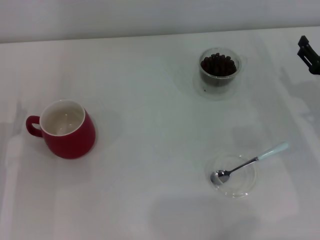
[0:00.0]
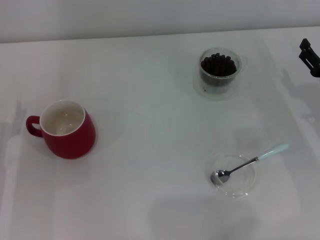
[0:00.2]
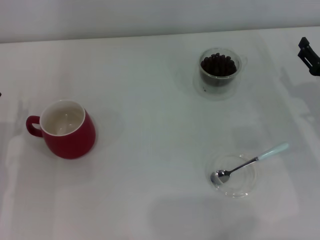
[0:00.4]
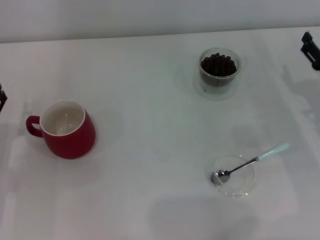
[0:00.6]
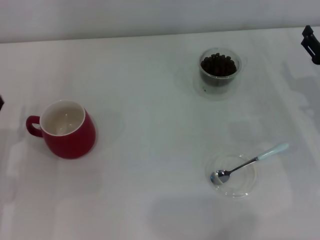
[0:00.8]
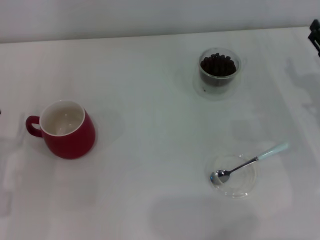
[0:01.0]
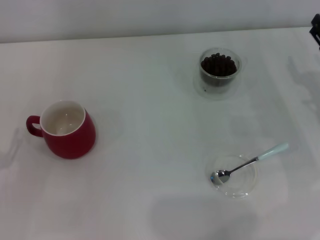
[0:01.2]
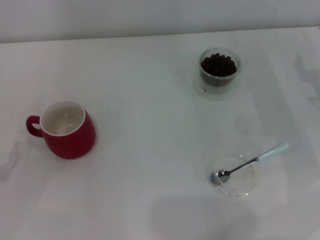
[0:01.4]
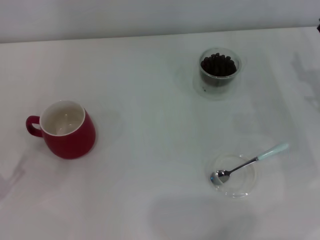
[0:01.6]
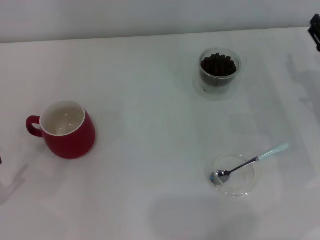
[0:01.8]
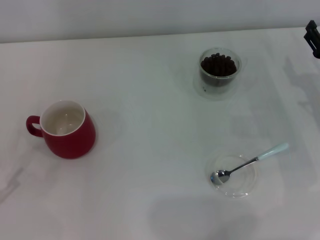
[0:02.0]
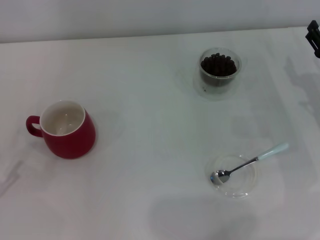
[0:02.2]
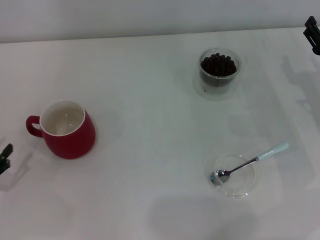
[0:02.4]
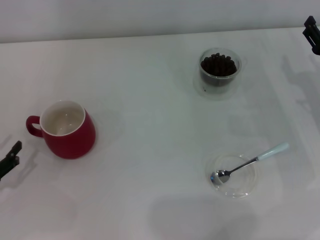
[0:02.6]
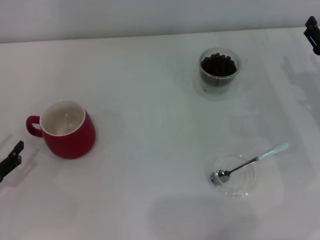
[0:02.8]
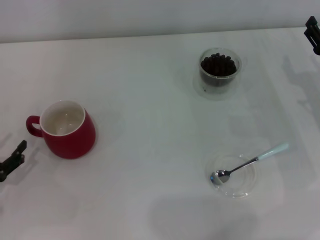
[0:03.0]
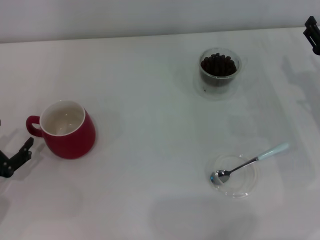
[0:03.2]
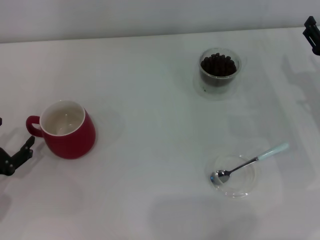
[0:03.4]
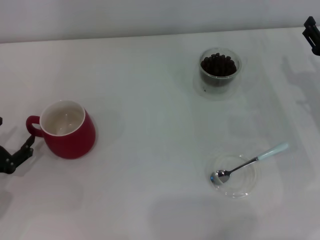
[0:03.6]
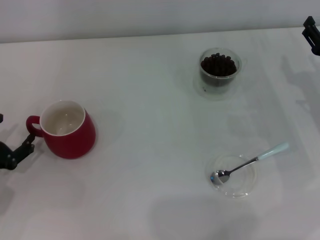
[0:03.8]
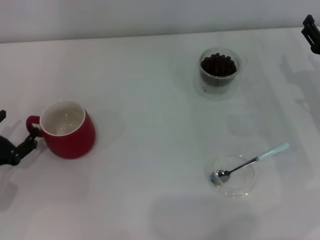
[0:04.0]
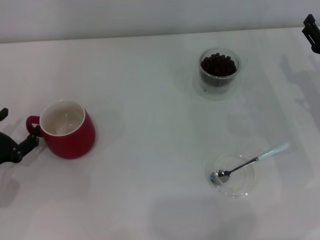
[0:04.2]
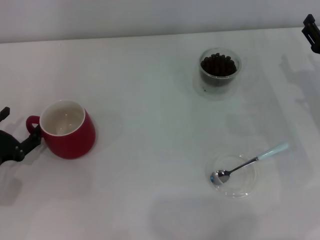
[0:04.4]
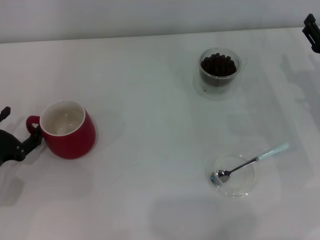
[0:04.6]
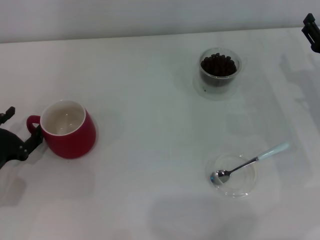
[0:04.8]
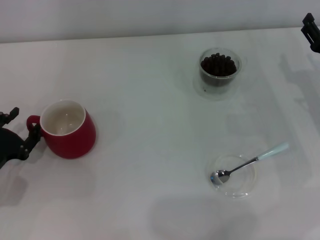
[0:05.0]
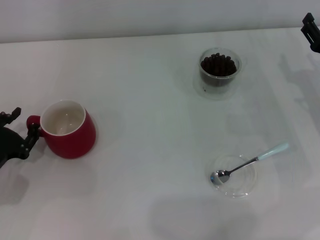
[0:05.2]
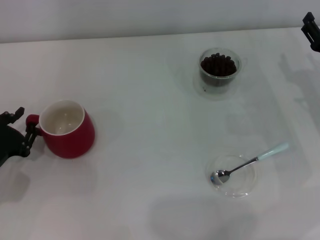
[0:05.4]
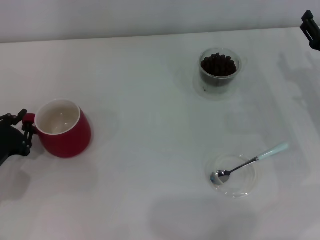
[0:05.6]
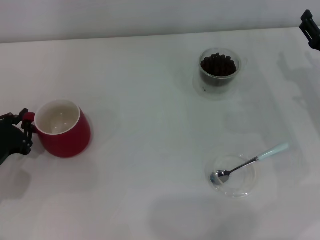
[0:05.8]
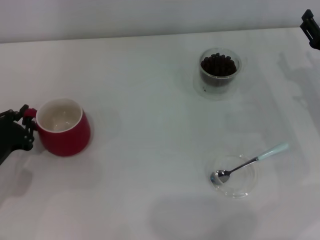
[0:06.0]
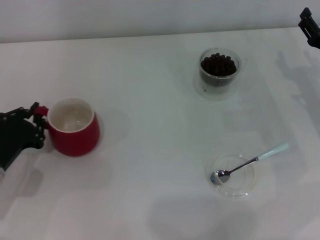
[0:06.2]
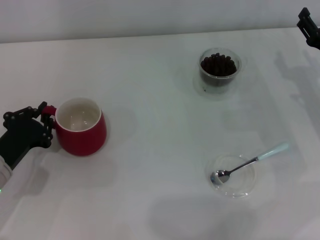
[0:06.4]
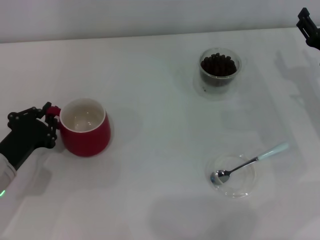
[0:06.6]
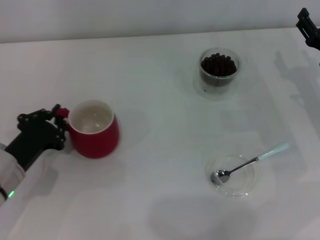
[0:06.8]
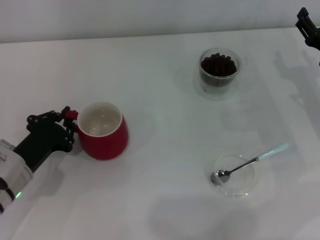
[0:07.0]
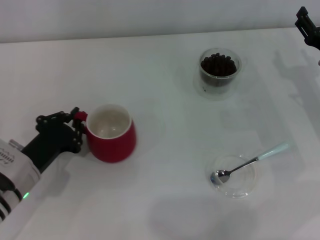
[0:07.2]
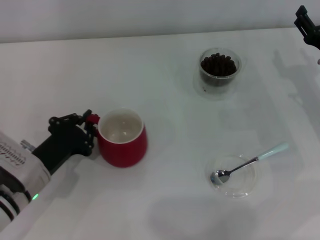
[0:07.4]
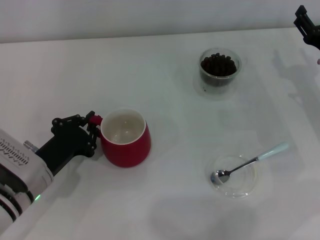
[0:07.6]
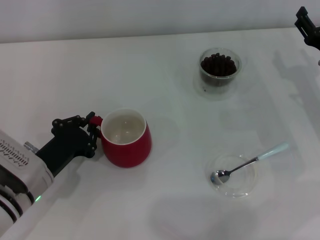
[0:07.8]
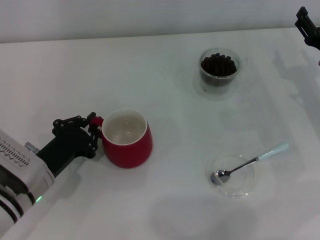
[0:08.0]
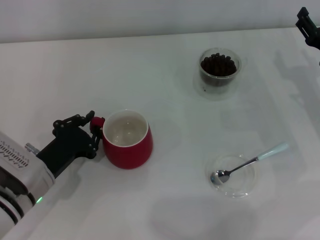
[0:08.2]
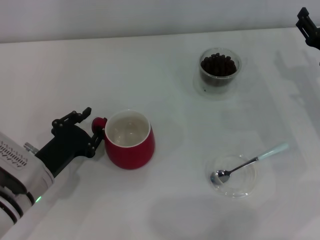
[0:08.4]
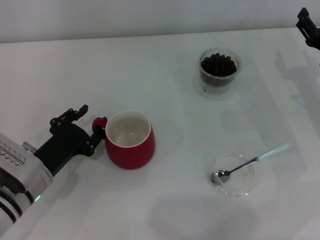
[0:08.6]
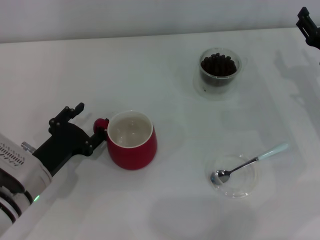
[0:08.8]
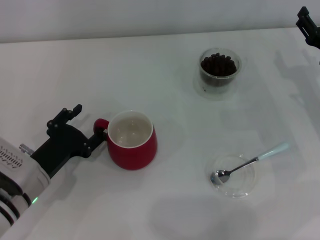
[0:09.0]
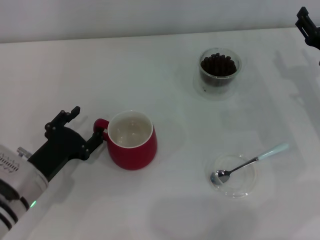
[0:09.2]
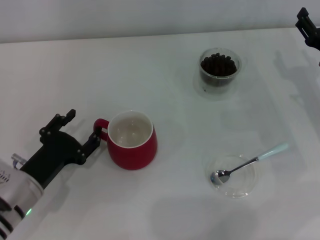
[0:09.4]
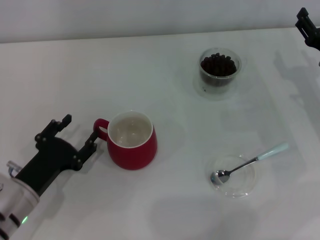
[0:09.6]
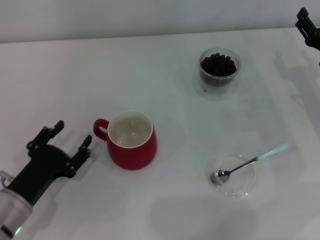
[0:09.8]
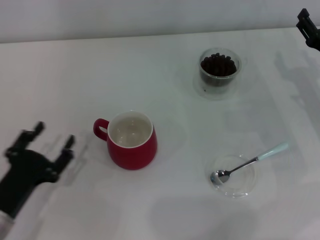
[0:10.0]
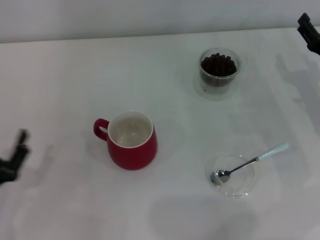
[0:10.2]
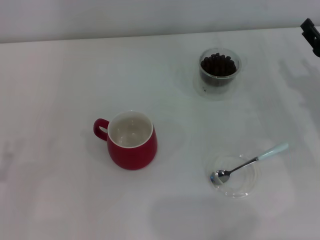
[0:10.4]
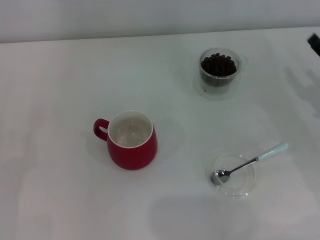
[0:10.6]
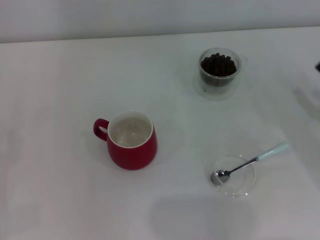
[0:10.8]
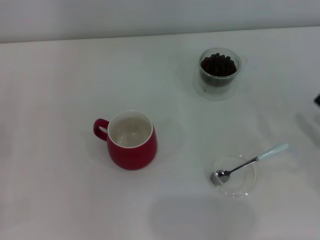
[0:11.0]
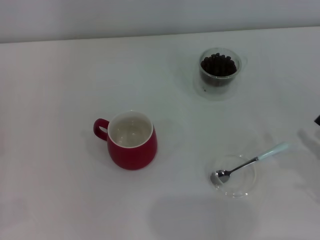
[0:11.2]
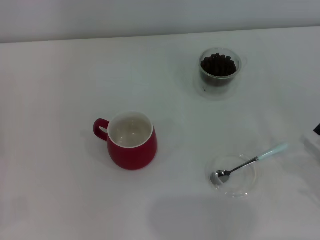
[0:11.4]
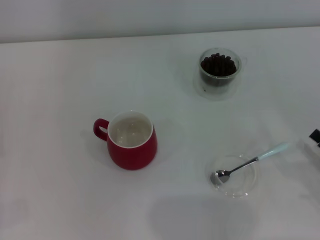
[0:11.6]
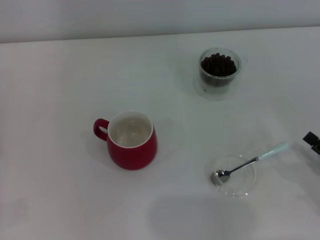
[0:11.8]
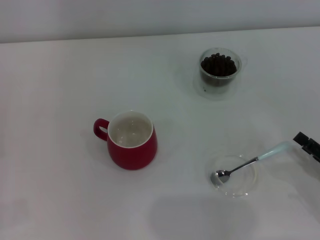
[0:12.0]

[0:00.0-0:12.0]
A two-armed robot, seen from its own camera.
Task of the whole recording: Use a blue spoon to take out the coffee beans from the glass and pour them into the red cup.
Step, 0:00.0 to 0:09.8: Move the cup to the center of view with the left gripper.
0:01.6 to 0:03.0: The left gripper moves approximately 5 cm.
0:03.0 to 0:04.4: There are only small adjustments of the grippers.
0:04.4 to 0:06.0: The left gripper closes up.
0:06.0 to 0:07.6: The left gripper goes approximately 10 cm to the right.
0:07.6 to 0:09.0: The left gripper opens its fingers.
0:09.0 to 0:10.4: The left gripper moves to the left and backward, roughly 15 cm.
0:10.4 to 0:12.0: The right gripper is displaced backward by about 15 cm.

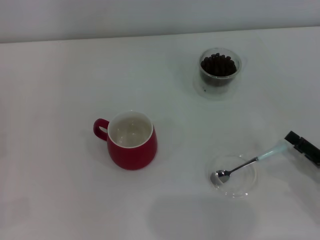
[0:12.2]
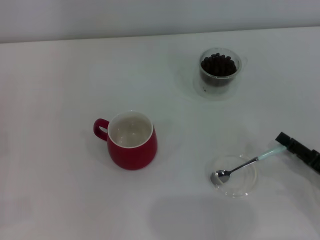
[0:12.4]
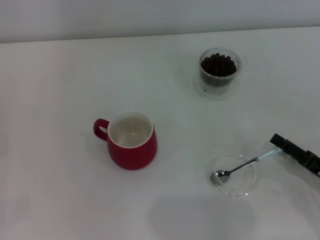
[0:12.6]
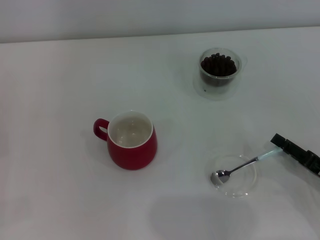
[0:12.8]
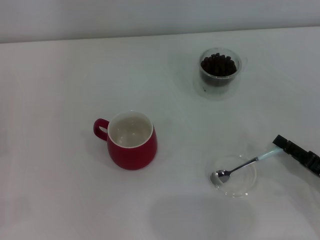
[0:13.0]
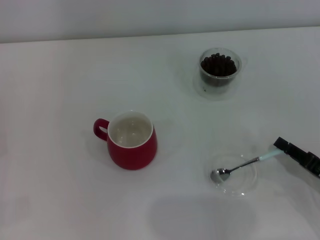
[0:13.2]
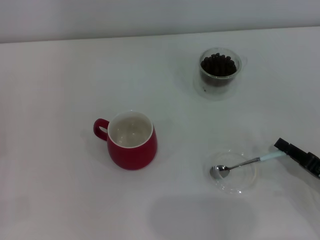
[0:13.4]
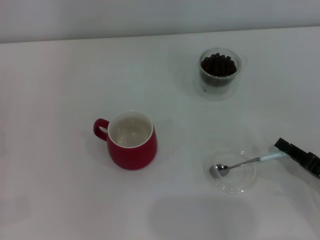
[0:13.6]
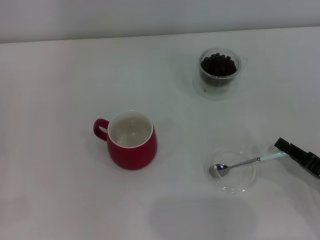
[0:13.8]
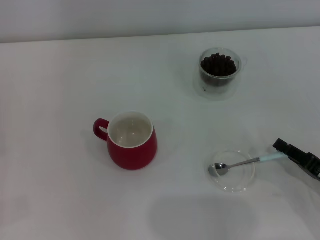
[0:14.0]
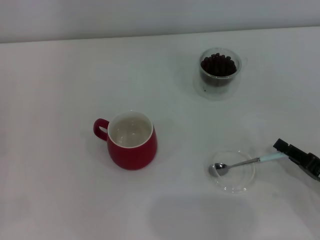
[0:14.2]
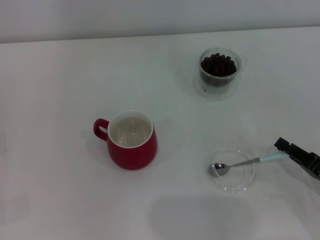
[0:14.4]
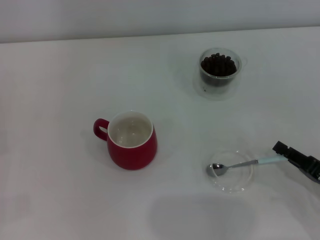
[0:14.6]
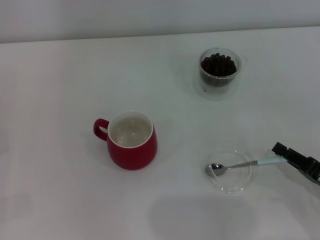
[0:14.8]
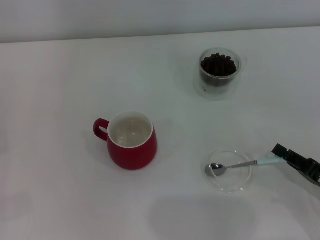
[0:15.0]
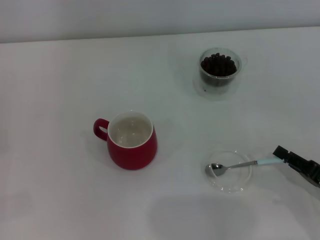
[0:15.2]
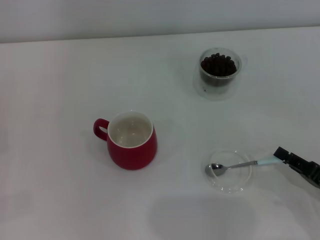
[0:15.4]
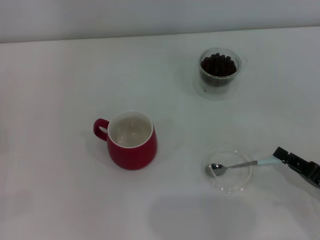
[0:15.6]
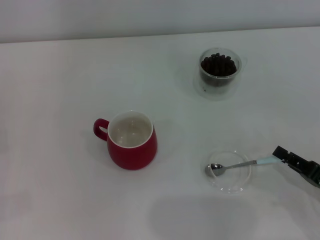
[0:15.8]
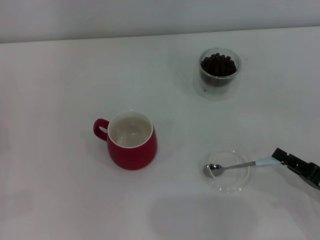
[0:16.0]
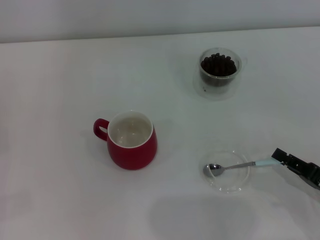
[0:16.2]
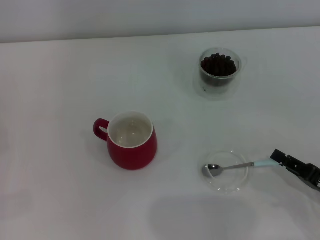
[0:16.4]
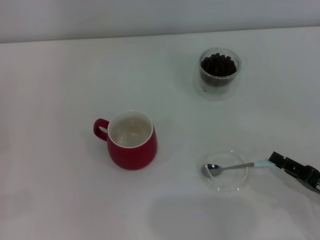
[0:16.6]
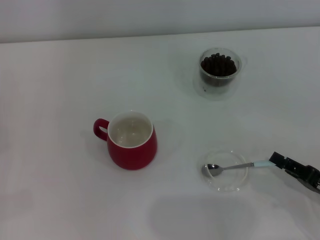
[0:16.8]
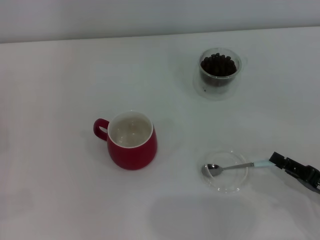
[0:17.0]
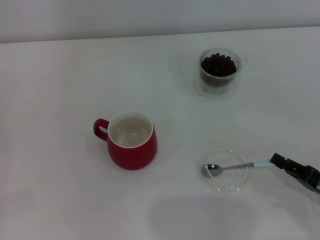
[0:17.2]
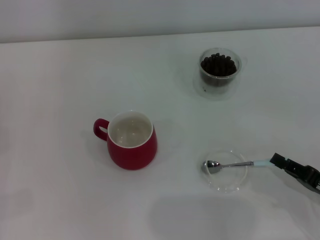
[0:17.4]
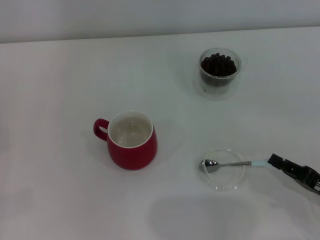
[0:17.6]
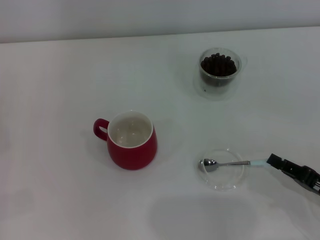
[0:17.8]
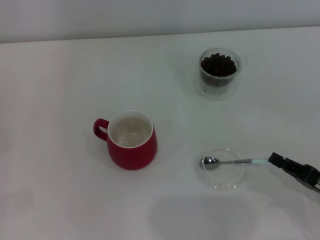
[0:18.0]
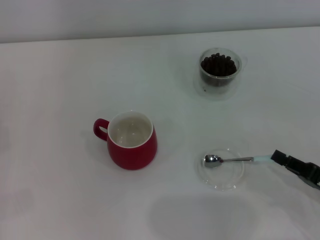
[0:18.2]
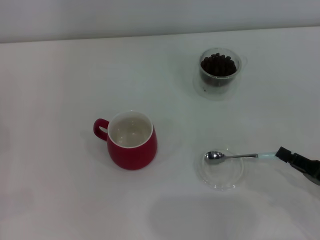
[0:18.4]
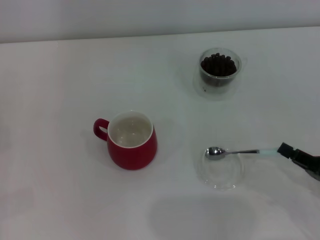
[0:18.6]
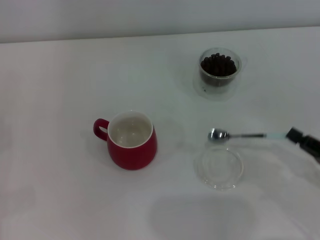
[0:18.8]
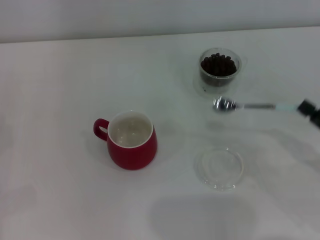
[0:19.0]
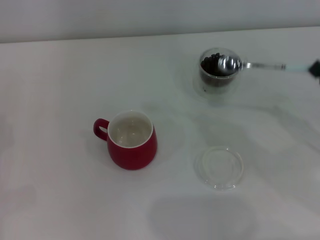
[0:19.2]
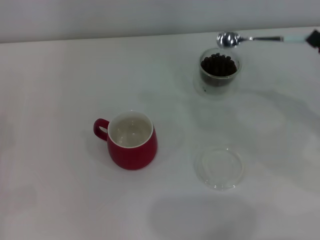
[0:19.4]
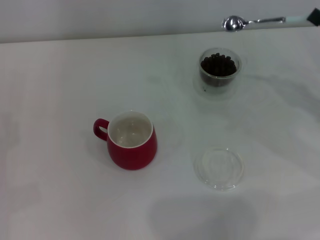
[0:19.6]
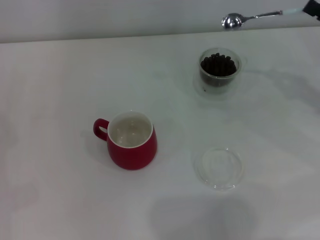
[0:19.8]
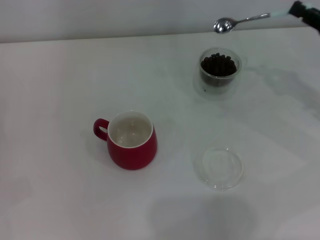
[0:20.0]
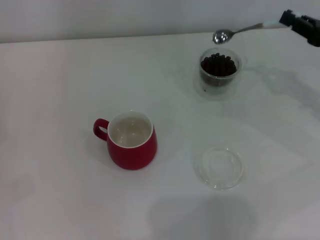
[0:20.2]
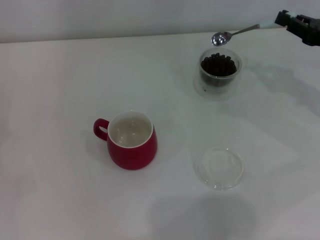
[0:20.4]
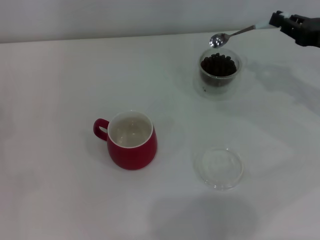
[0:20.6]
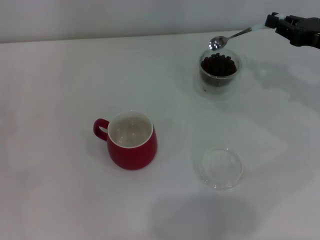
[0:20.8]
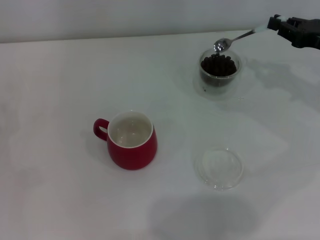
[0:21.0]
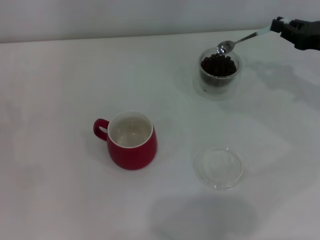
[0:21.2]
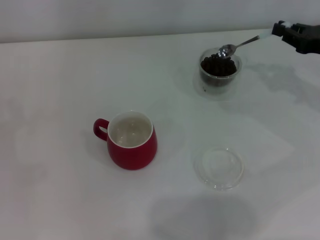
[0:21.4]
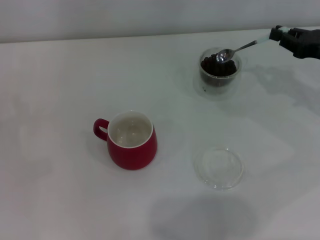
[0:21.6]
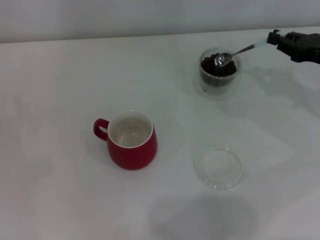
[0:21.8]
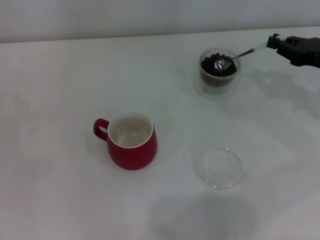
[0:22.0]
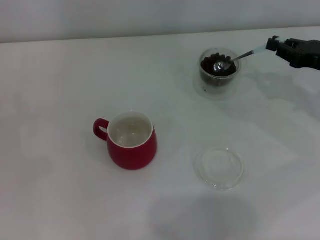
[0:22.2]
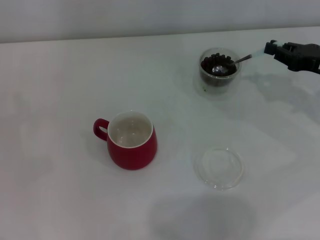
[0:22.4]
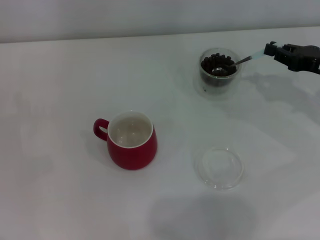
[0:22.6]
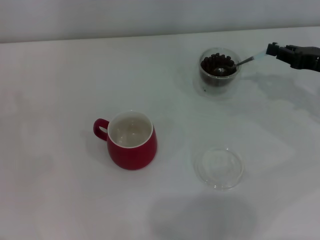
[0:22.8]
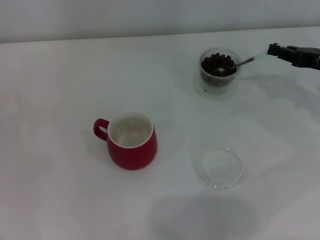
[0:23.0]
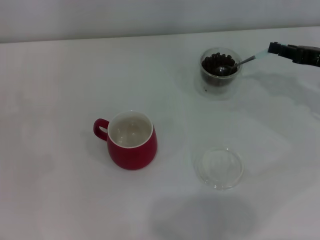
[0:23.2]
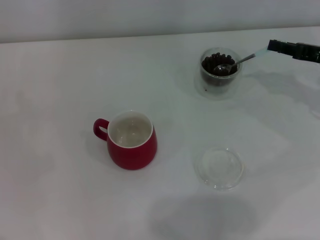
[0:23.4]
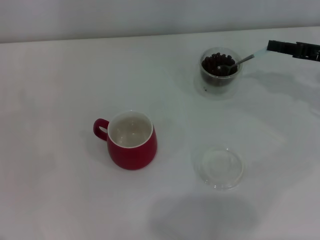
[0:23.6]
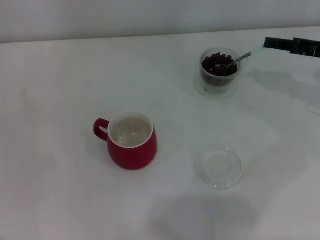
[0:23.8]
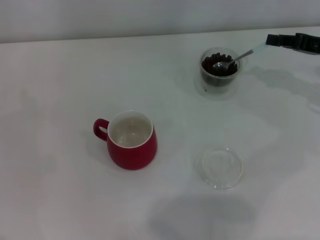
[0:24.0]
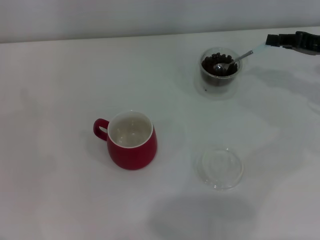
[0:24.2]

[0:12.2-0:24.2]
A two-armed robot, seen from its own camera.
Task of the whole recording: Use a blue spoon to take out the coffee beans from the glass and pour them into the red cup.
Step, 0:12.2 to 0:18.8: Pick up the spoon with the right gripper.
0:12.2 to 0:13.8: The right gripper closes up.
0:13.8 to 0:15.2: Neither gripper changes place.
0:15.2 to 0:16.6: Neither gripper changes place.
0:16.6 to 0:18.2: Both grippers stay put.
0:18.2 to 0:19.8: The right gripper is displaced forward and upward by about 20 cm.
0:19.8 to 0:21.2: The right gripper shifts by approximately 5 cm.
0:21.2 to 0:22.6: The grippers move only a little.
